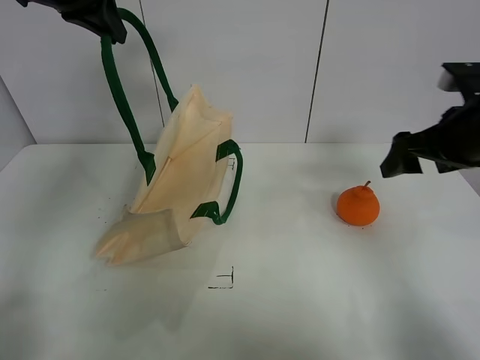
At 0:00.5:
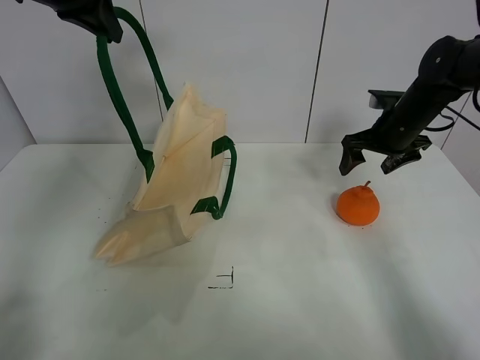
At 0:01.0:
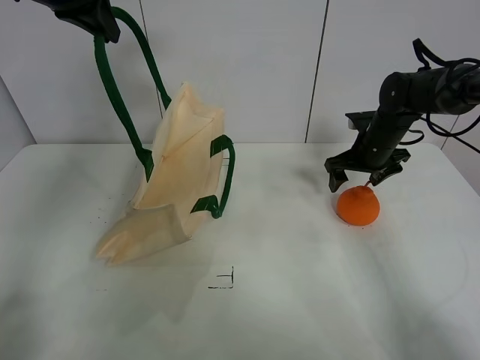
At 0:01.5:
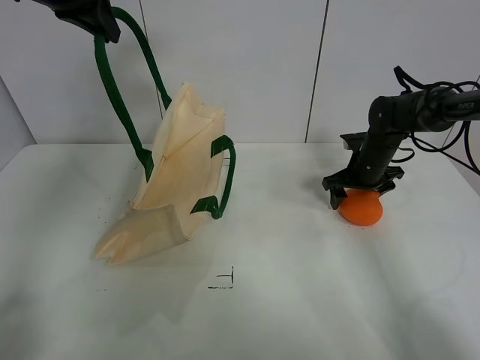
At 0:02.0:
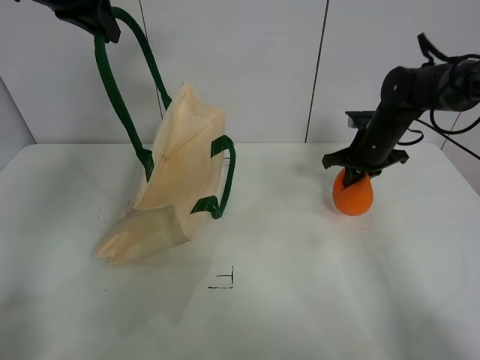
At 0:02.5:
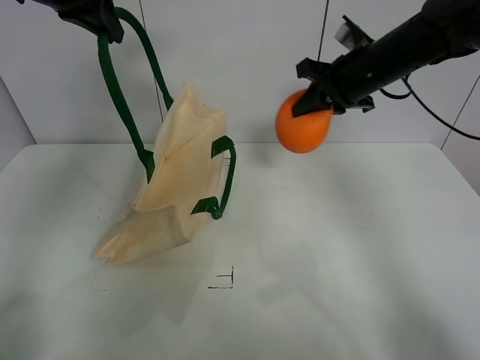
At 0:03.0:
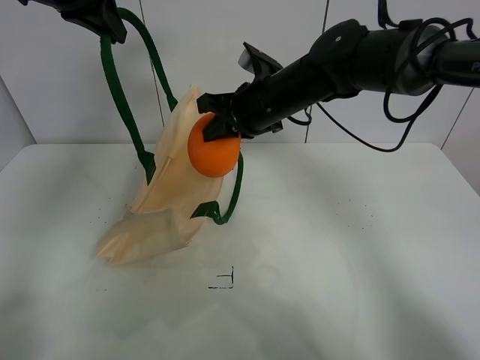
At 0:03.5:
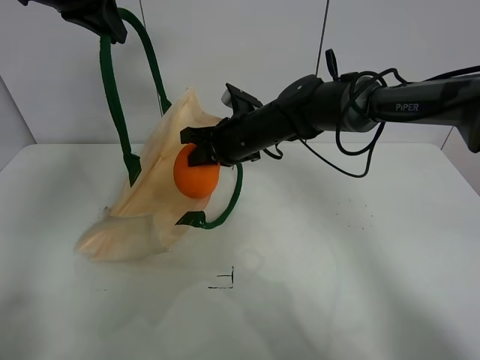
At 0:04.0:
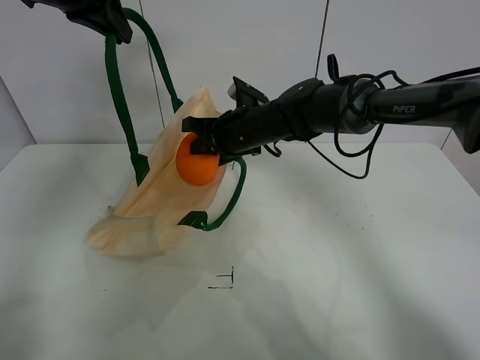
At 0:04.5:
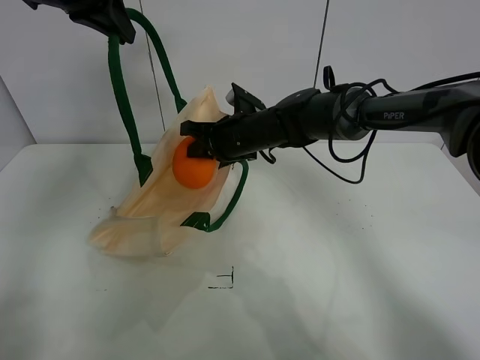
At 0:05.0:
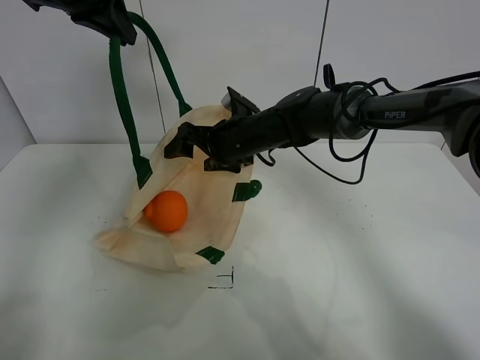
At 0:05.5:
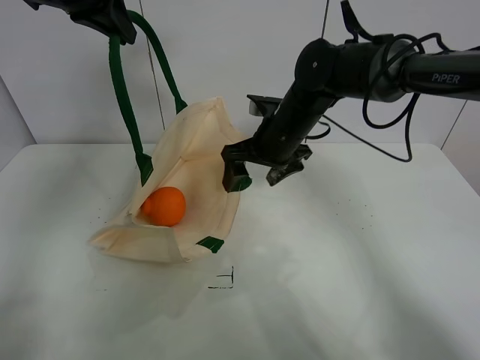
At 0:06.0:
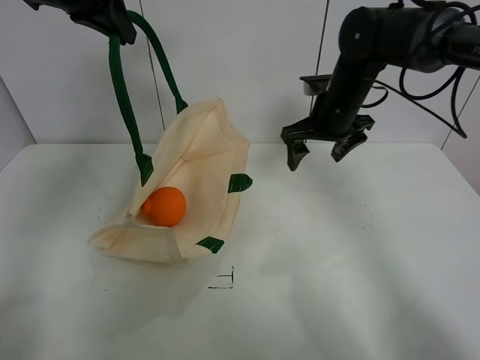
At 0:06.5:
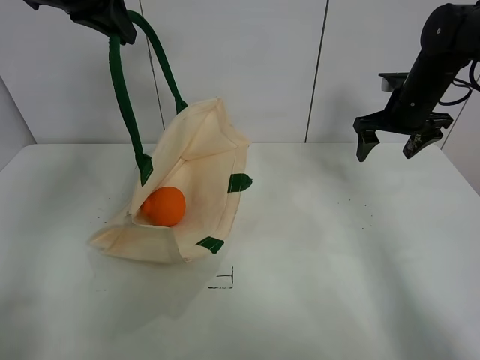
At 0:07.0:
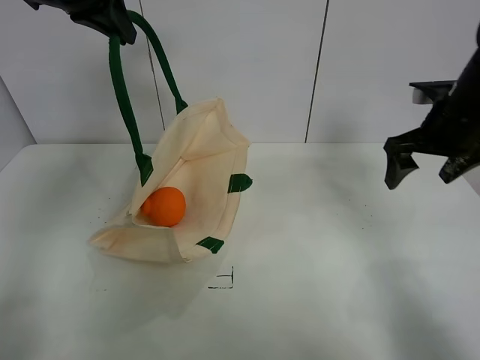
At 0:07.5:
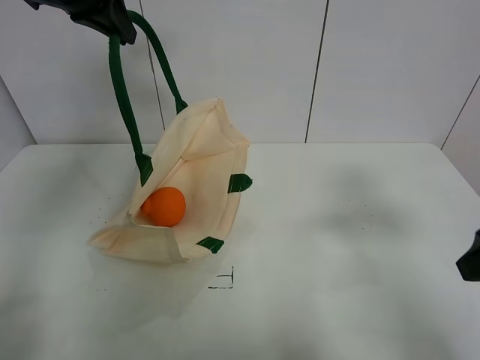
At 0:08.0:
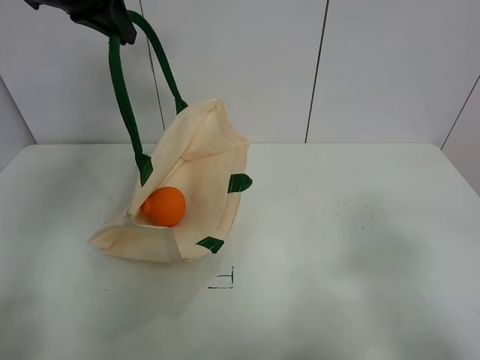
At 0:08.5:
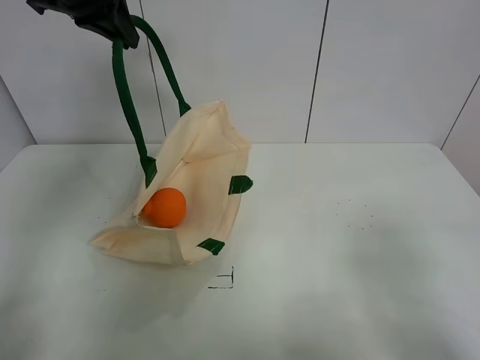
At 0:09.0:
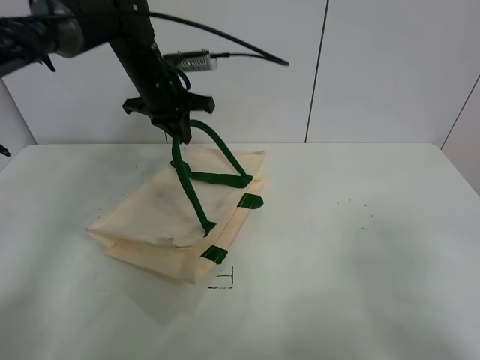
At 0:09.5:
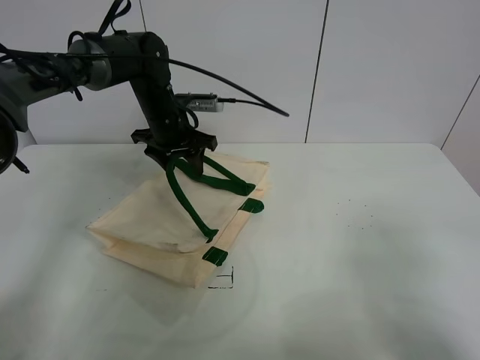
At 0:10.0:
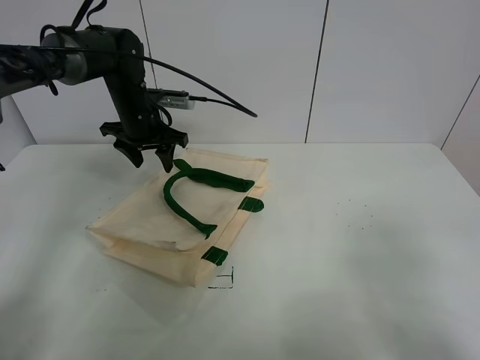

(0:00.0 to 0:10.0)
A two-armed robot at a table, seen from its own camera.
Task of the whole recording: open the white linen bag and put the orange in the bag.
Step, 0:00.0 - 0:01.5: Grasp the orange with right gripper.
Step, 0:02.0 - 0:04.5: Place the orange in the handbag with right gripper.
Step, 0:05.0 - 0:09.5: Put down the handbag with left gripper.
0:00.0 - 0:02.0: The right gripper goes about 15 cm forward and downward, and closes up.
0:02.0 - 0:04.0: The right gripper is displaced to the left by approximately 20 cm.
0:04.0 - 0:06.0: The right gripper moves to the right, approximately 15 cm, and opens.
0:06.0 - 0:08.0: The right gripper moves backward, about 35 cm.
0:08.0 - 0:10.0: The left gripper shifts roughly 25 cm downward and forward, and opens.

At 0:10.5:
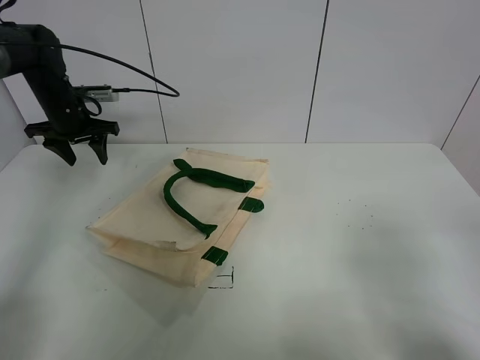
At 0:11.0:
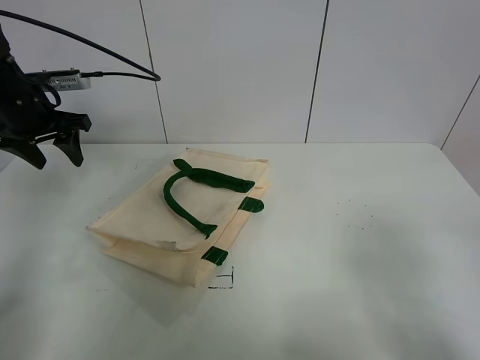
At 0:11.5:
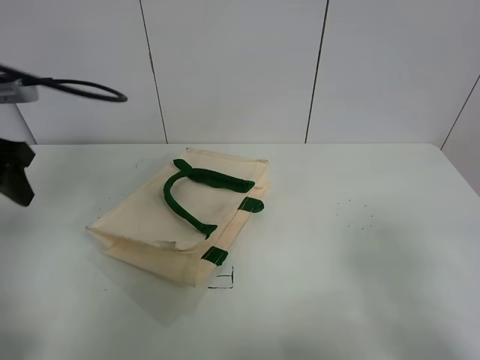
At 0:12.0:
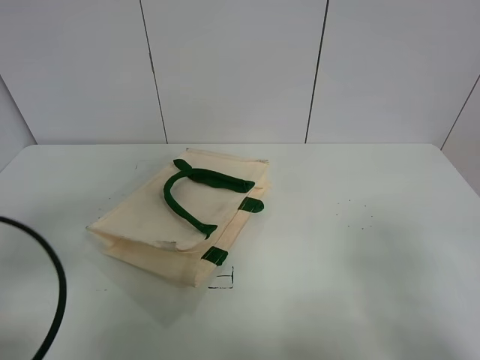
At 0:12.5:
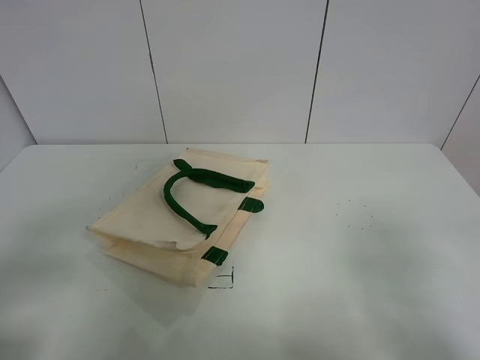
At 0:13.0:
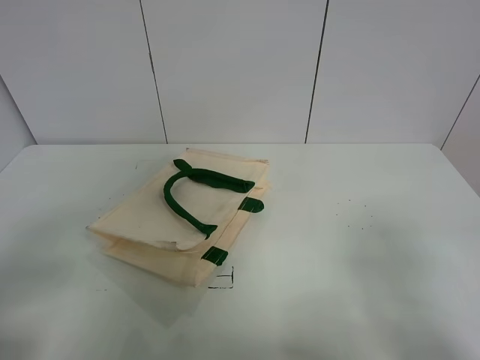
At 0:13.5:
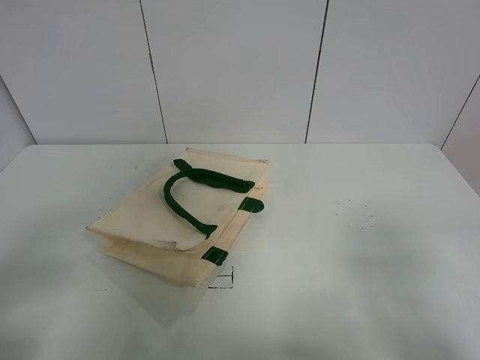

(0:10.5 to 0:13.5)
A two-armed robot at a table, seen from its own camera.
Task of the whole recording: open the white linen bag and put the orange in the bag.
0:10.5 - 0:12.0: The left gripper travels backward by some 40 cm.
0:12.0 - 0:13.5: The left gripper goes about 10 cm backward.
